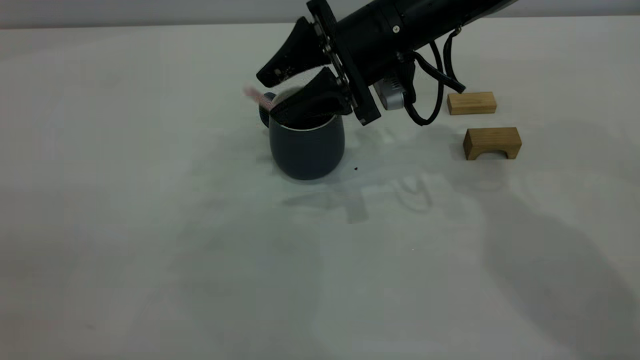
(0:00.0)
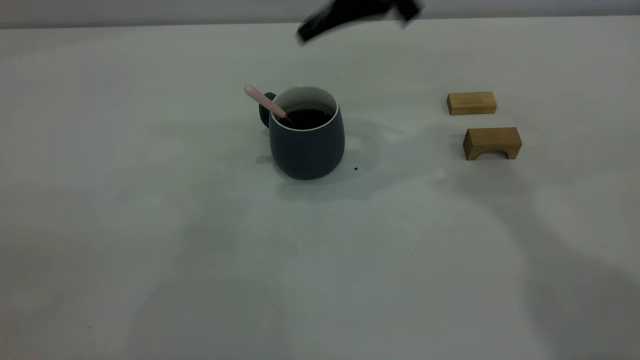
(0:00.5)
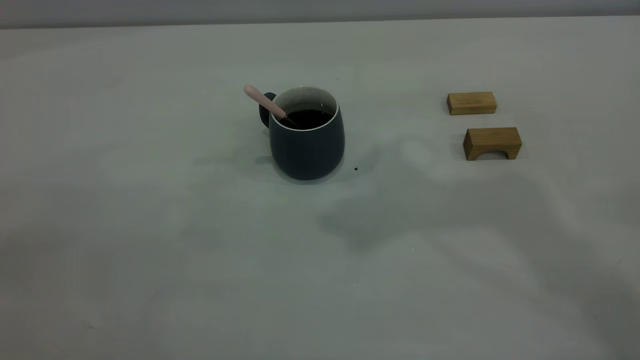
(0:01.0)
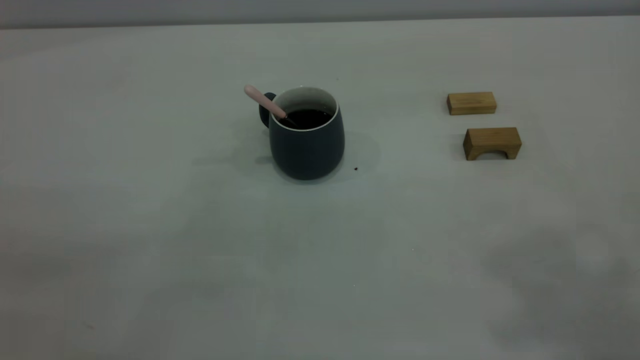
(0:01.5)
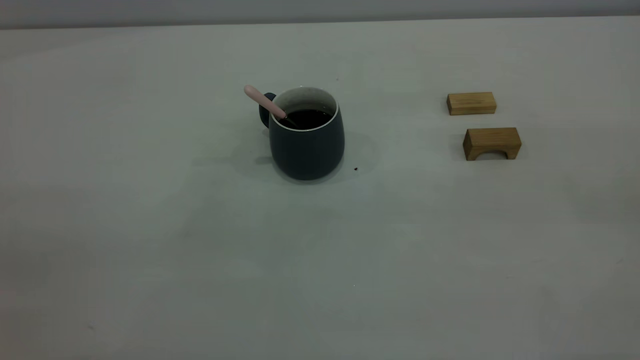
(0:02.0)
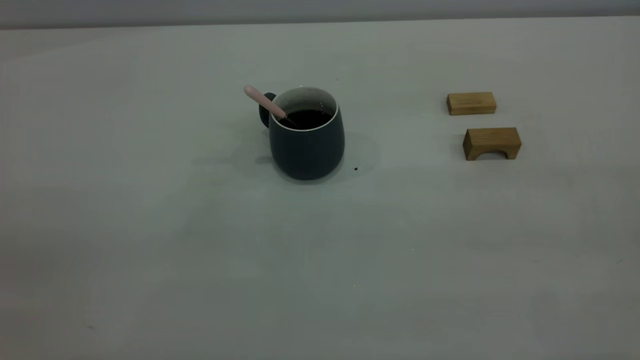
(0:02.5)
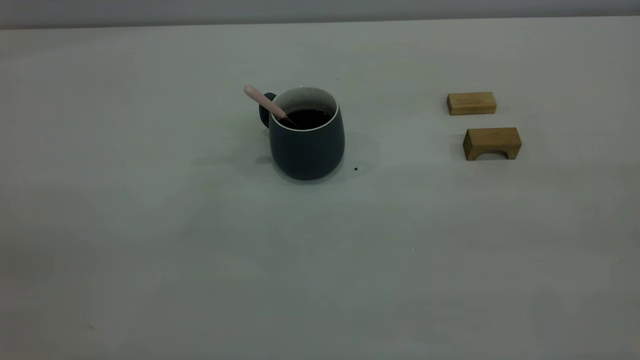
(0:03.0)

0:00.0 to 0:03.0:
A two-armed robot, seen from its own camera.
0:00.0 to 0:01.5: The right gripper is displaced upward, backward and to the right by roughly 50 cm, and closes its fingers.

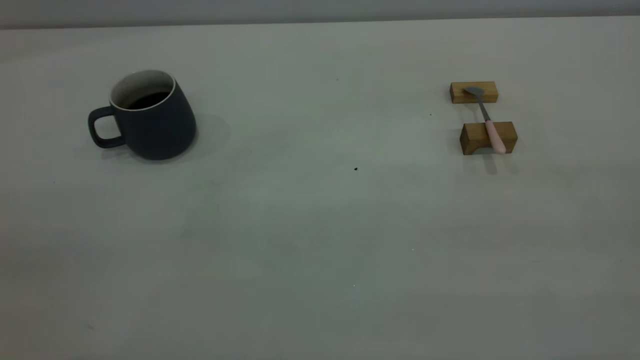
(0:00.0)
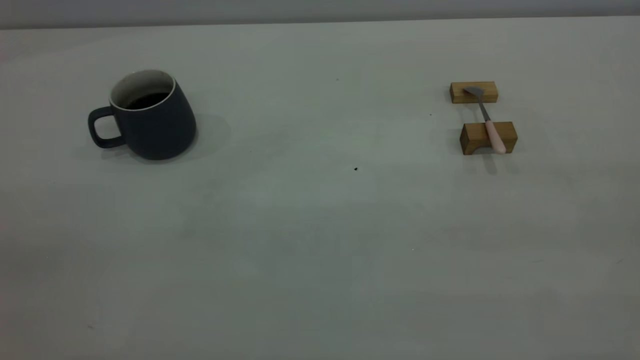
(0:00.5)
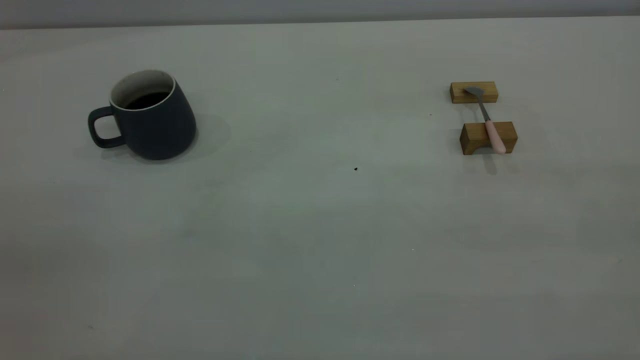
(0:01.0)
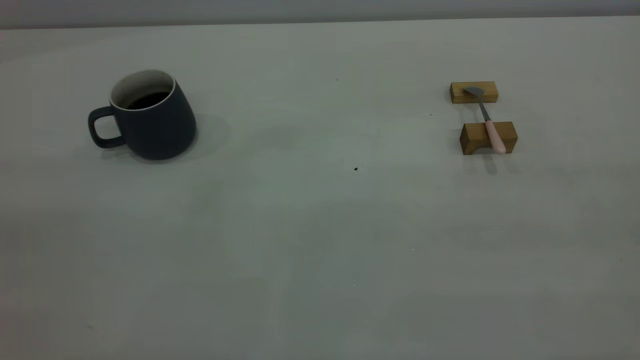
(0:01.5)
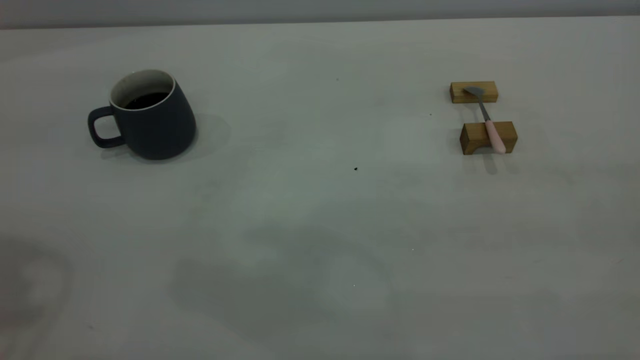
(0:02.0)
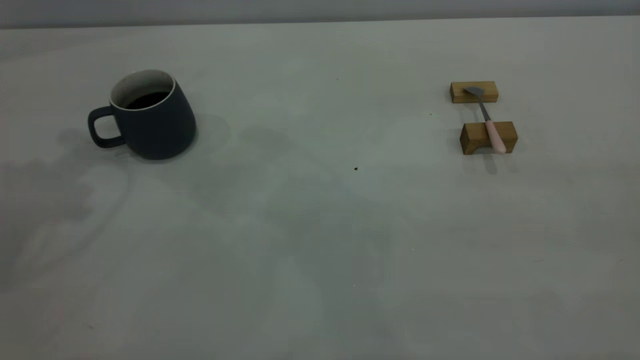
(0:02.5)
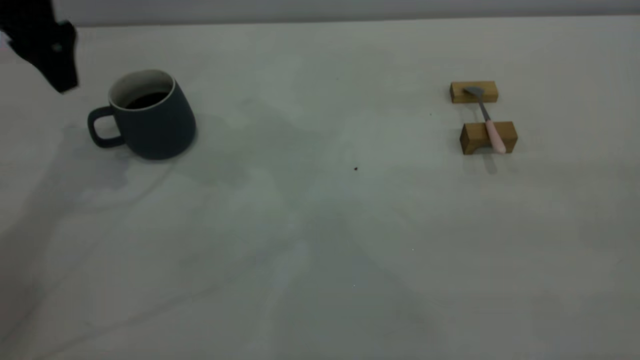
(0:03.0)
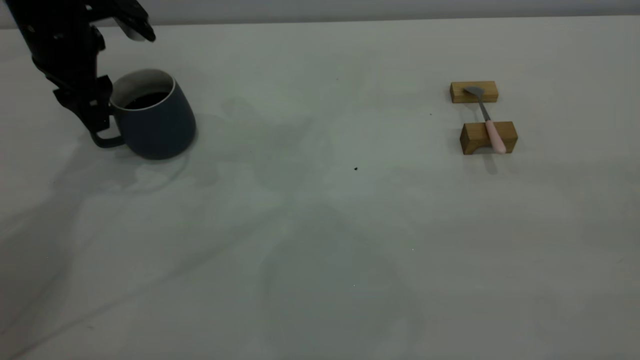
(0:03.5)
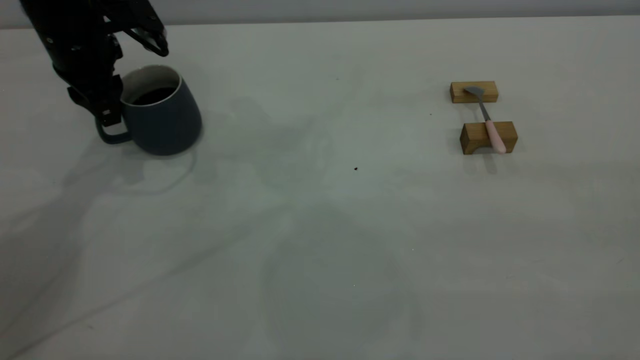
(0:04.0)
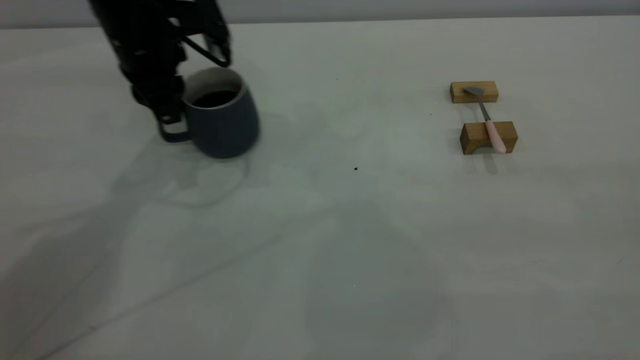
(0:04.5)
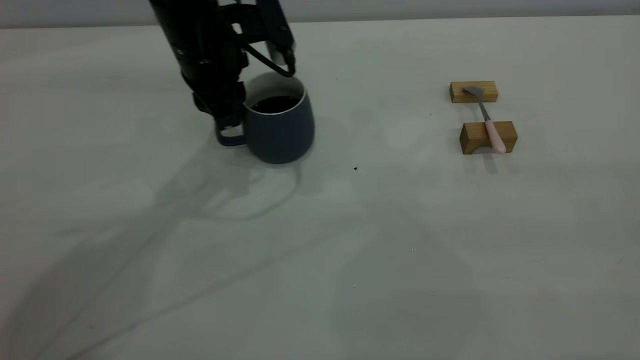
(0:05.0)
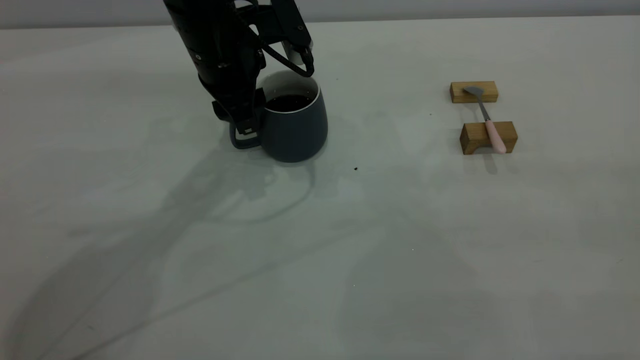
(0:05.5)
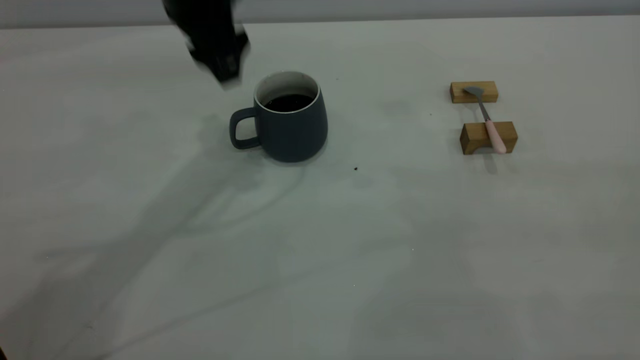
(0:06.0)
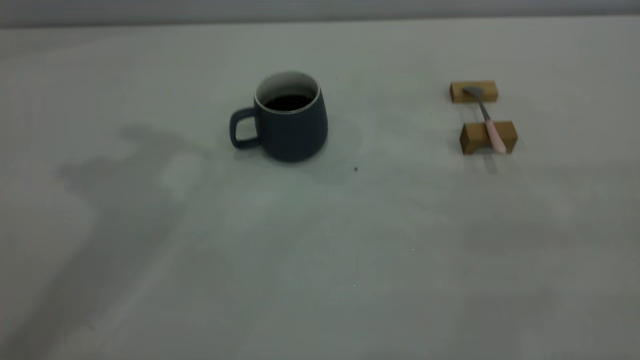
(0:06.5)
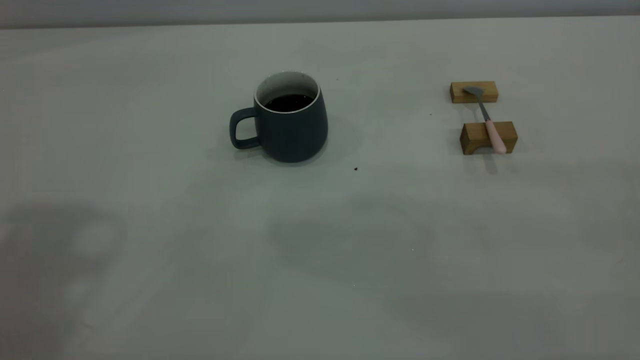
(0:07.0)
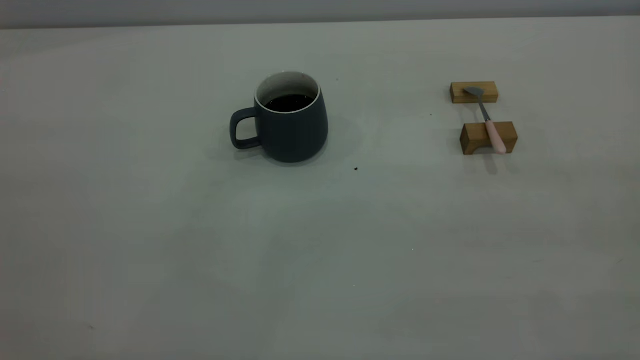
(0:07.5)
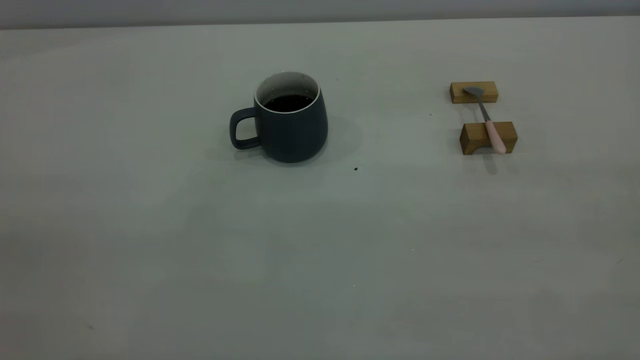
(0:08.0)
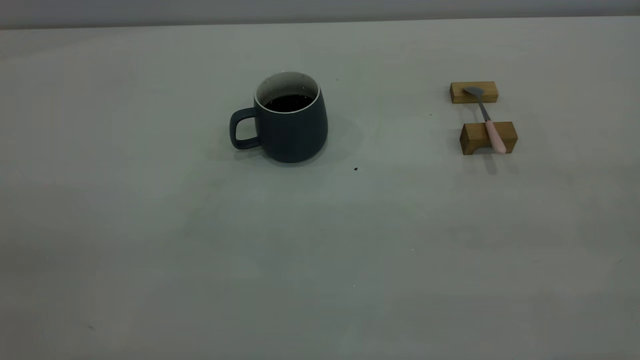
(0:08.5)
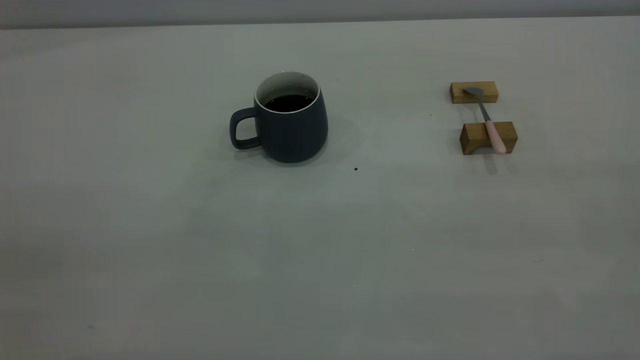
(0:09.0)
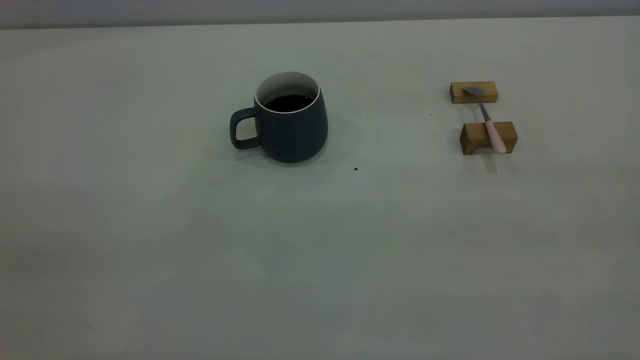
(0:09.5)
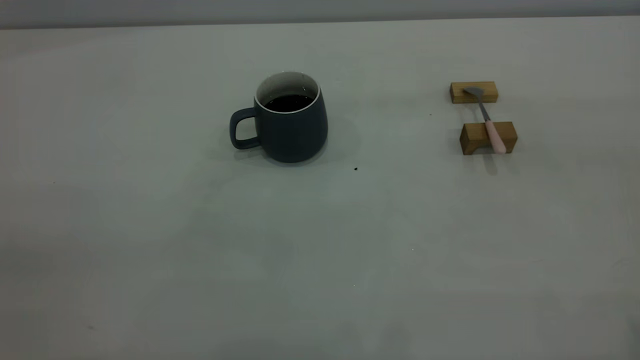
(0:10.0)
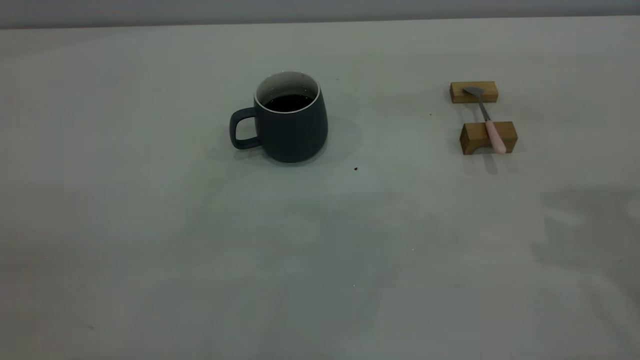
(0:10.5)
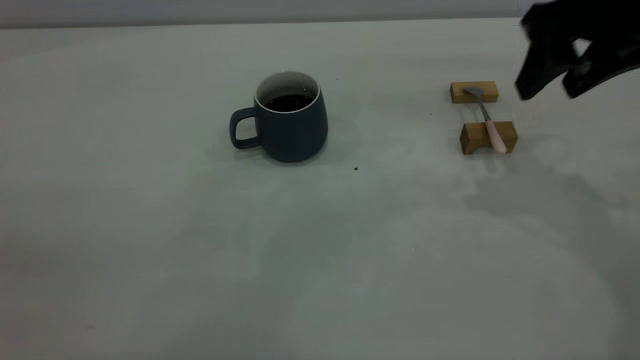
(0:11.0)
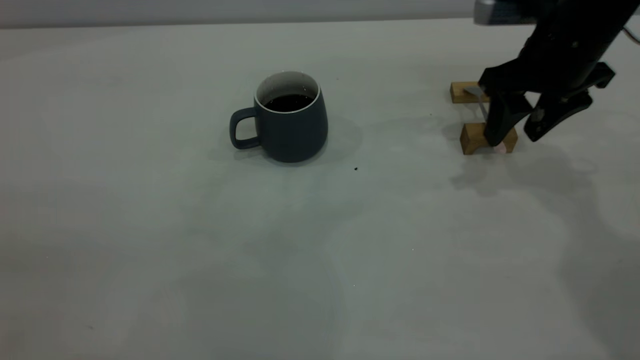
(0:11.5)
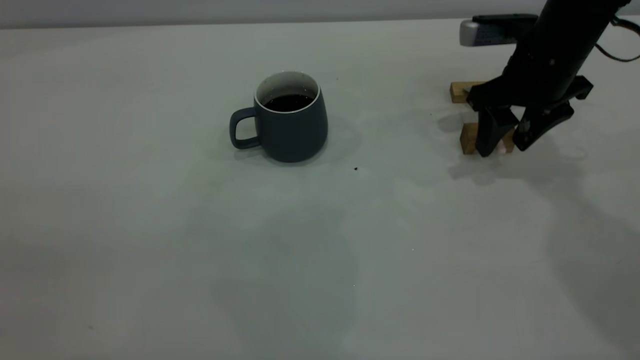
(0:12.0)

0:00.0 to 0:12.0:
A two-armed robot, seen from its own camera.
Step, 0:00.0 to 0:05.5: Move the cup with coffee to the center of view.
0:02.0 to 0:04.0: The left gripper heads downward and forward, covering some 30 cm, and closes.
0:04.0 to 0:06.0: The left gripper moves to the right and upward, some 15 cm, and opens.
0:06.0 to 0:08.0: The left gripper goes some 40 cm backward and to the left, and closes its fingers.
0:10.0 to 0:12.0: The right gripper travels forward and downward by some 40 cm.

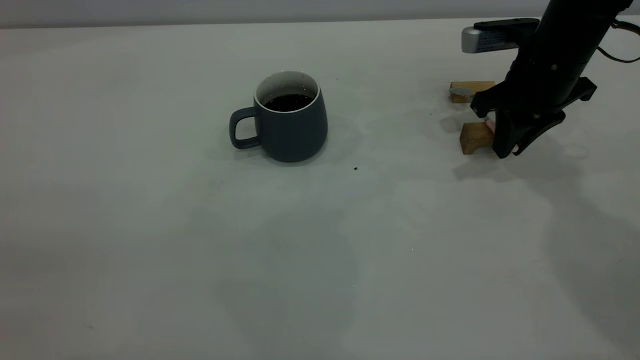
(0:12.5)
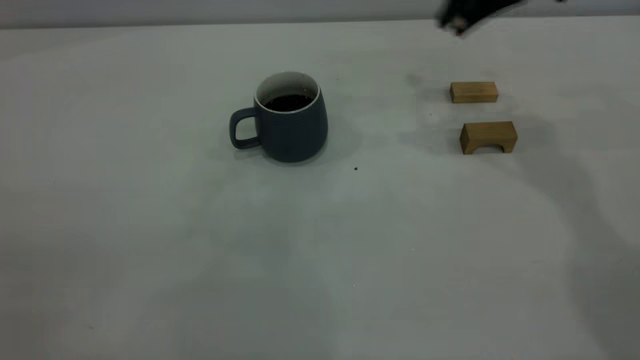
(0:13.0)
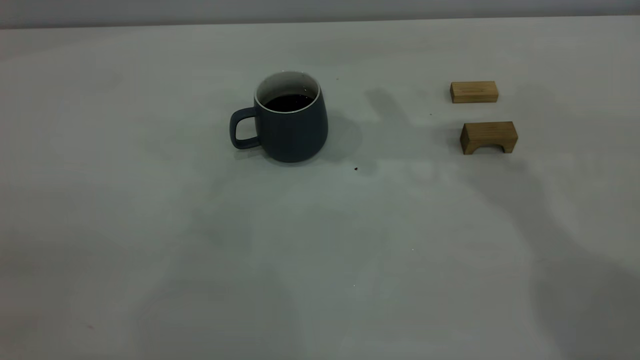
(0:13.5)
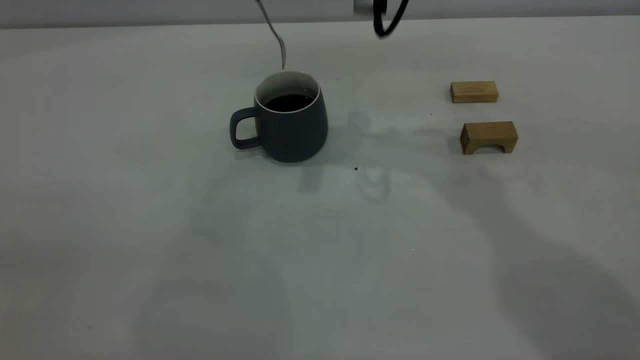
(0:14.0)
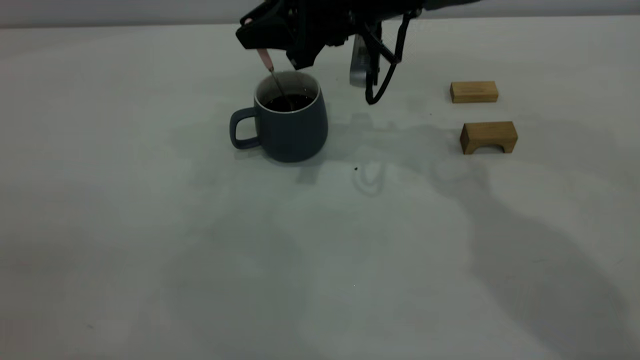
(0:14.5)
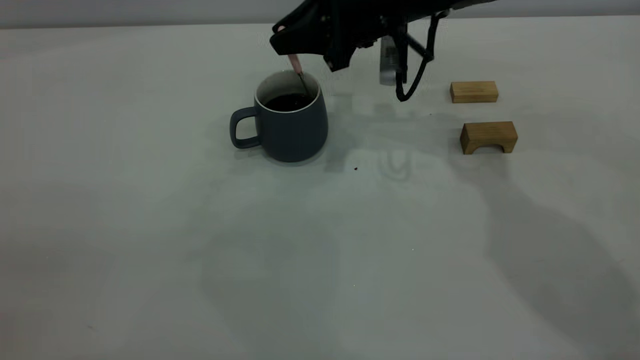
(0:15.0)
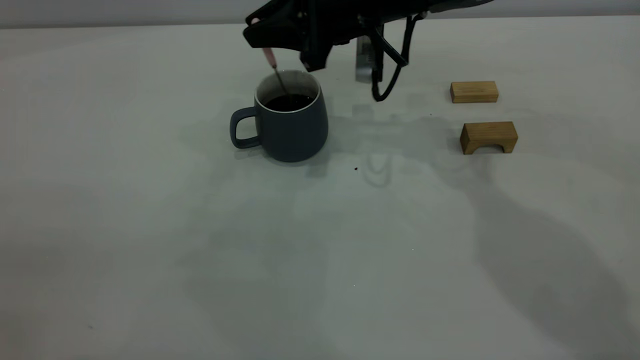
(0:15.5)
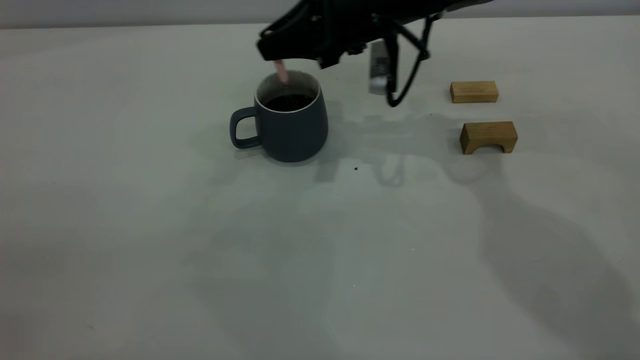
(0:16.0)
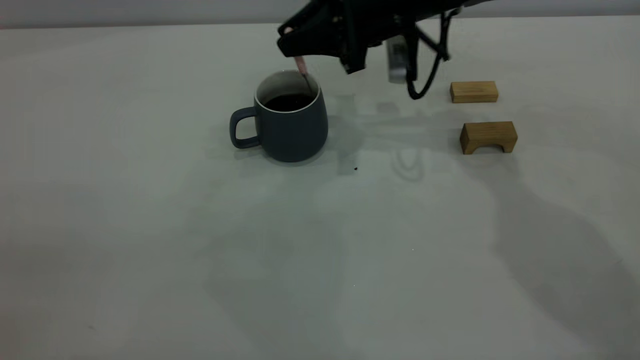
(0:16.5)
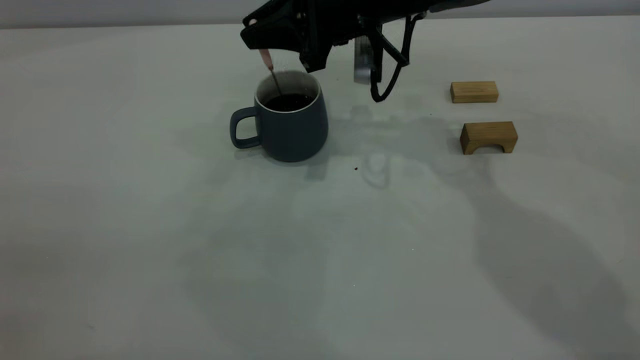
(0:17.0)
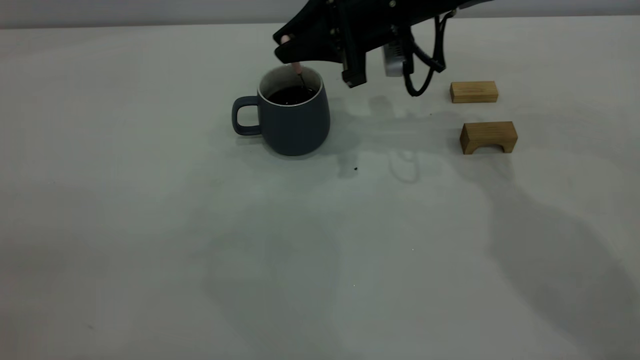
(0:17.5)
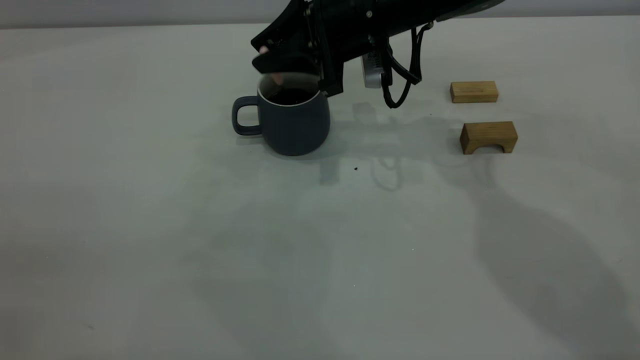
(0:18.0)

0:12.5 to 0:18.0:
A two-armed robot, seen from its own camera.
0:12.5 to 0:14.5: The right gripper is displaced to the left by about 20 cm.
0:14.5 to 0:16.0: The grippers stay close to where they were, moving slightly.
0:16.0 to 0:18.0: The right gripper opens its fingers.
